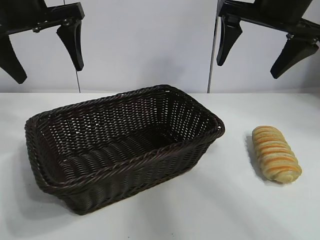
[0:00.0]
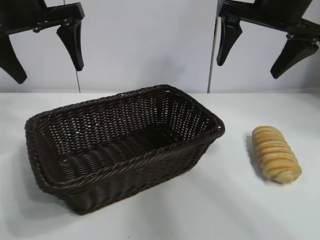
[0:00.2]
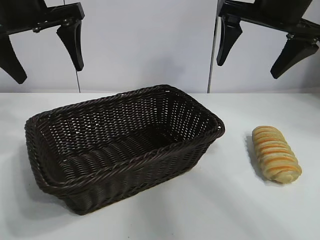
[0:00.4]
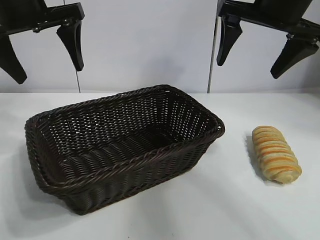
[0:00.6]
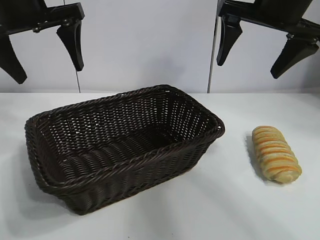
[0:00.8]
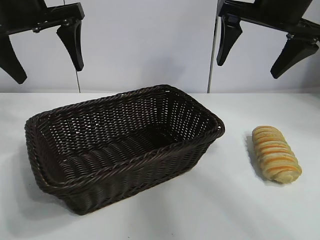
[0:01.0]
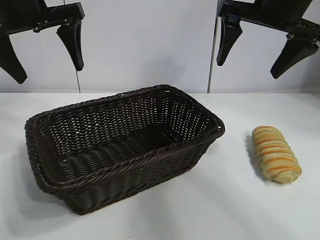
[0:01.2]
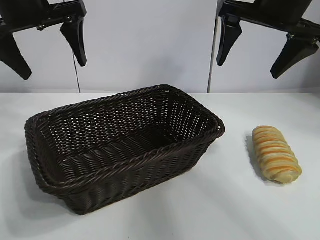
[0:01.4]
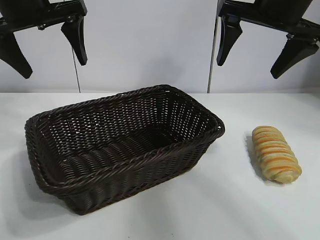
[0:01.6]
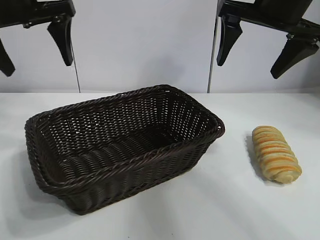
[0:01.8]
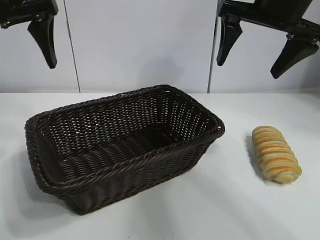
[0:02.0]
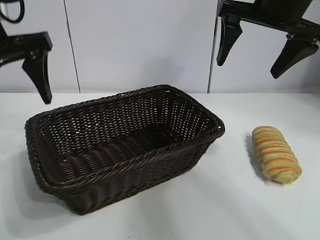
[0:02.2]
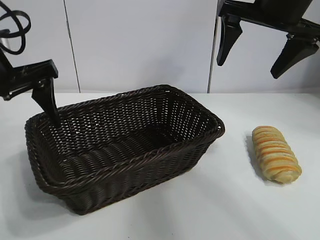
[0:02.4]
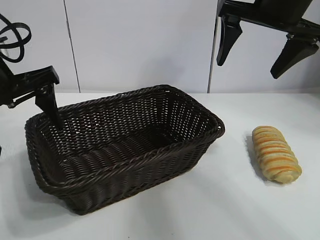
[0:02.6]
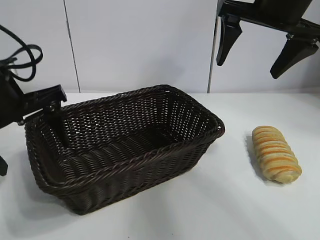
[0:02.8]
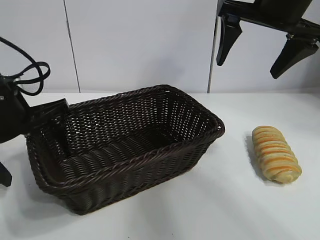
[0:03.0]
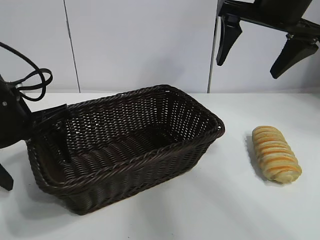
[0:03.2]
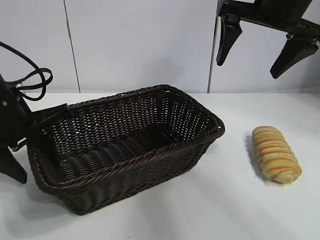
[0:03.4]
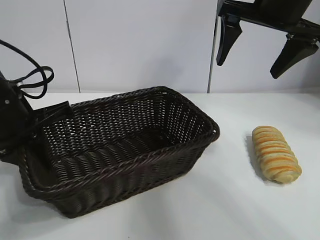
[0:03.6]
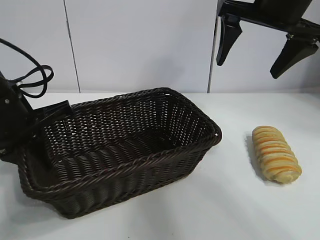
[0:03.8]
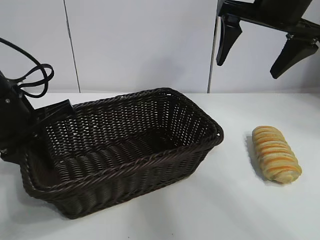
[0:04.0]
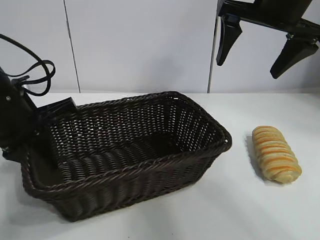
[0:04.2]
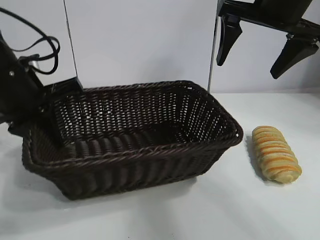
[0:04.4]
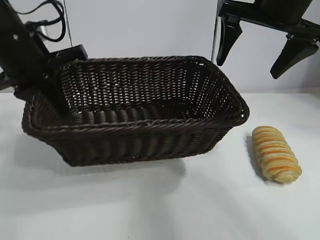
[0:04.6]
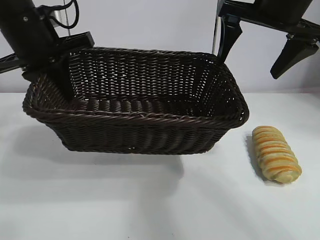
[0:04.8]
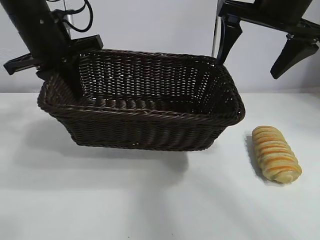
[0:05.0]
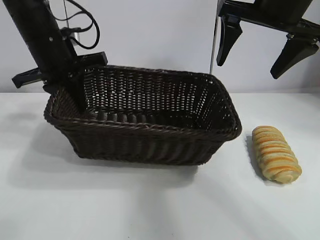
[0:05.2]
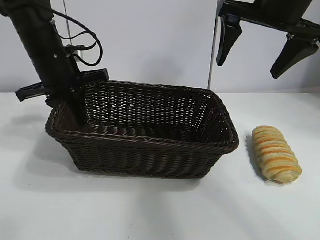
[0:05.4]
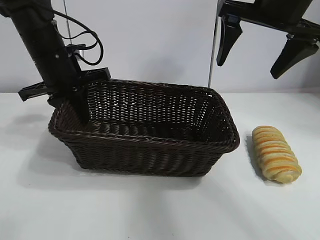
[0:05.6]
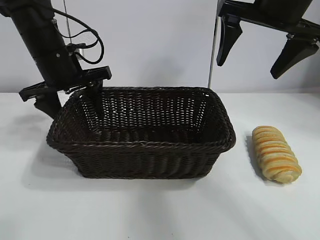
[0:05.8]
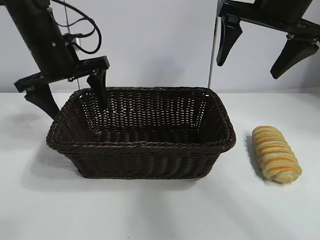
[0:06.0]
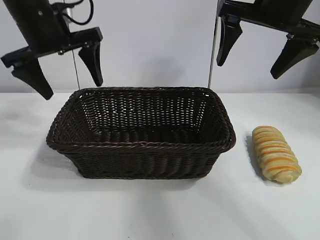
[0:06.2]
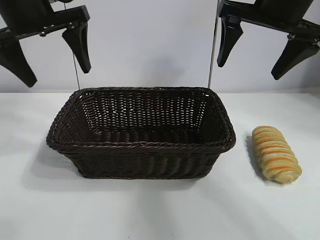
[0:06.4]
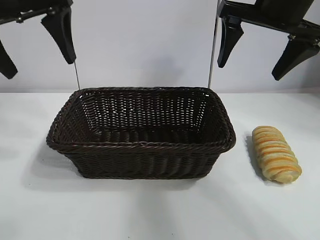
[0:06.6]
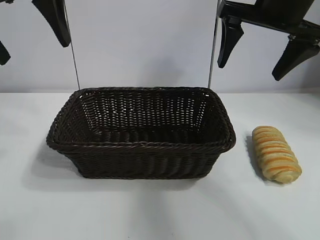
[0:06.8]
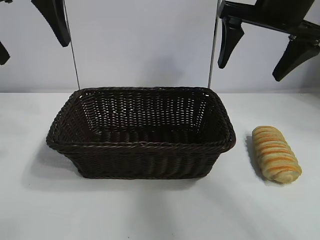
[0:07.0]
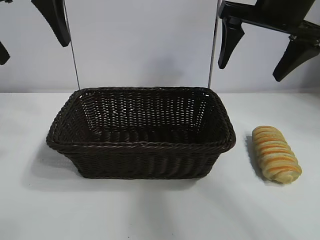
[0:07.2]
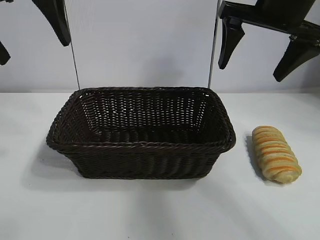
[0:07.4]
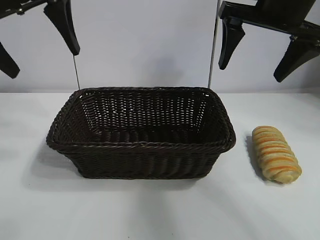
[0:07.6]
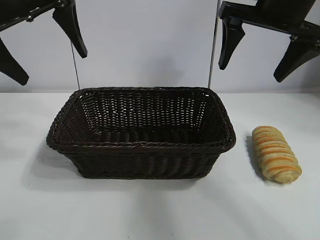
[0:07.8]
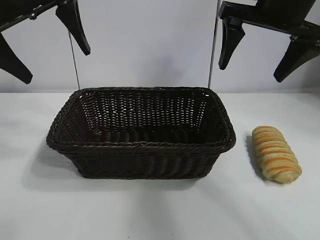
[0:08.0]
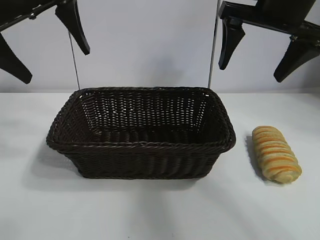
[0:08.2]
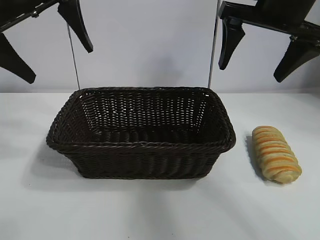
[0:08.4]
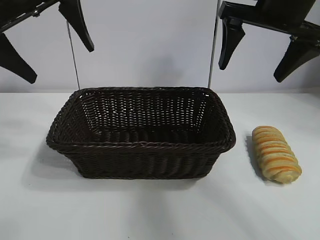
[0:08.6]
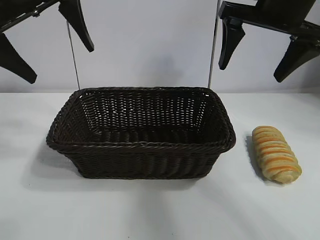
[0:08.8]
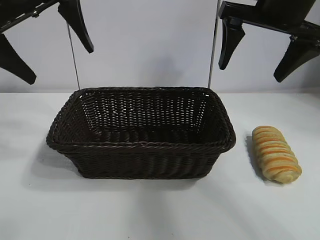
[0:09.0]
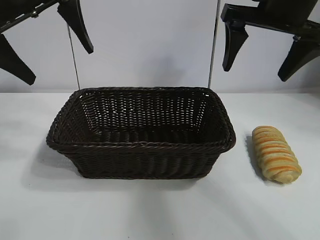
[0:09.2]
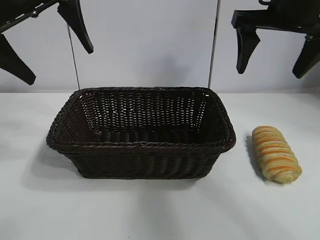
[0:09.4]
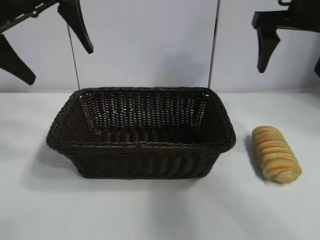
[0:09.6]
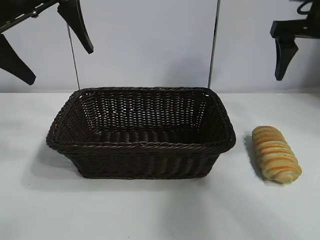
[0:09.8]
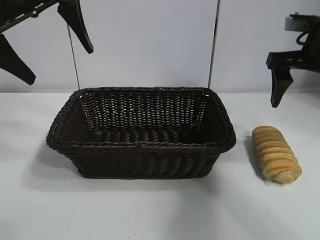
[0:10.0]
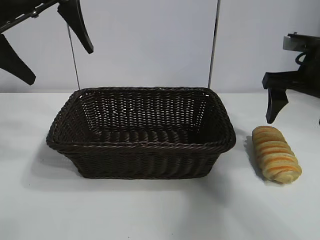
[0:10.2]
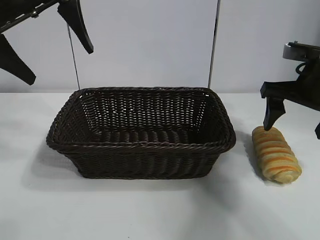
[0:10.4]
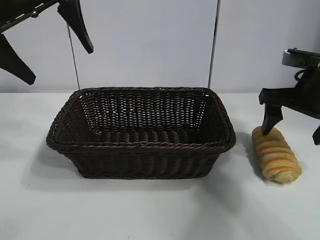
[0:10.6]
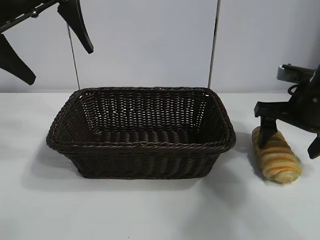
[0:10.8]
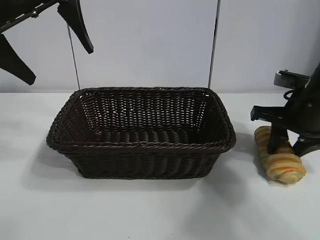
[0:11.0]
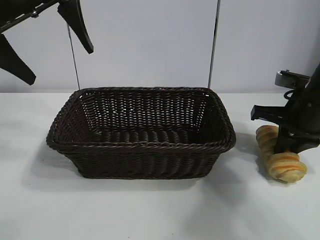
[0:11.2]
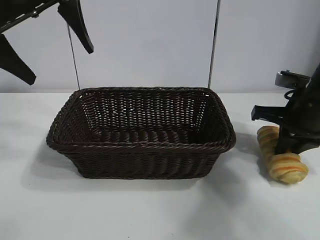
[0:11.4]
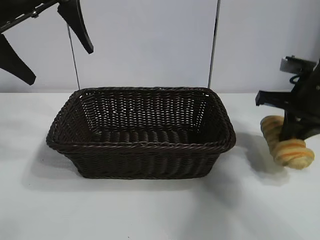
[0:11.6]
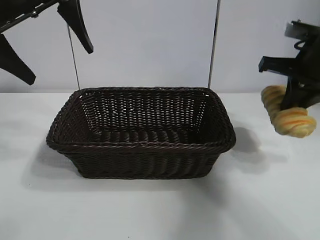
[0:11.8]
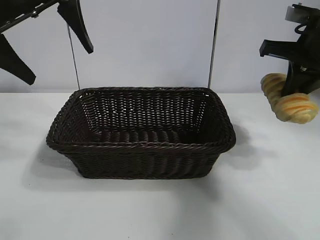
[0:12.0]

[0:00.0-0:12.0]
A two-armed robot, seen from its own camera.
Task of the whole recording: pick up the long bread and put it into the basket.
Step, 0:01.4 to 0:03.6: Grasp the basket with the left gripper.
Step, 0:03.8 to 0:05.8: Place the basket in the center of the table with the left gripper.
Step, 0:06.0 to 0:11.0: Grasp the long bread with right gripper.

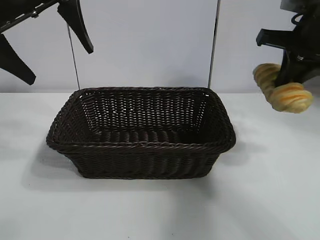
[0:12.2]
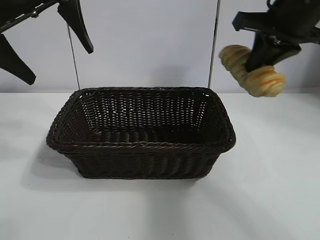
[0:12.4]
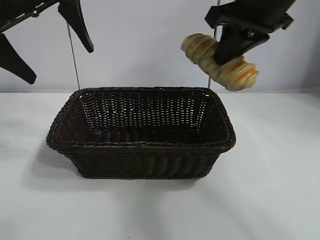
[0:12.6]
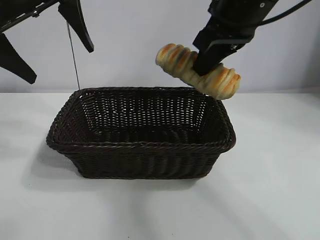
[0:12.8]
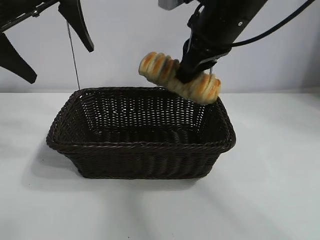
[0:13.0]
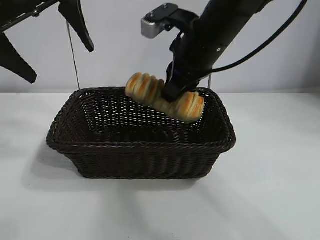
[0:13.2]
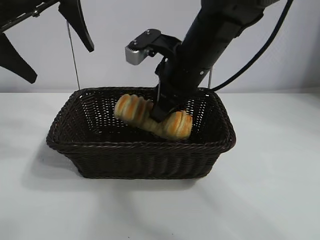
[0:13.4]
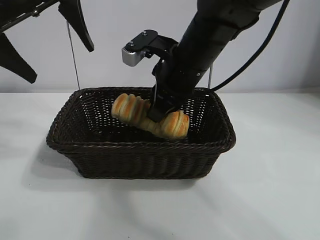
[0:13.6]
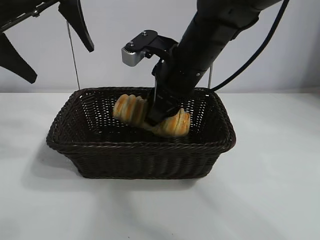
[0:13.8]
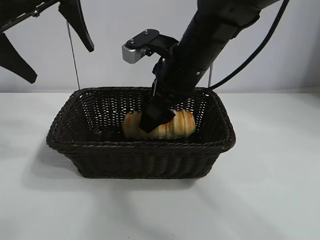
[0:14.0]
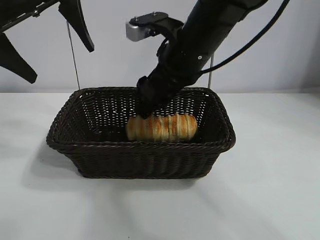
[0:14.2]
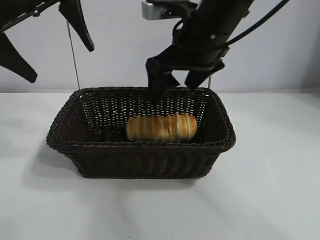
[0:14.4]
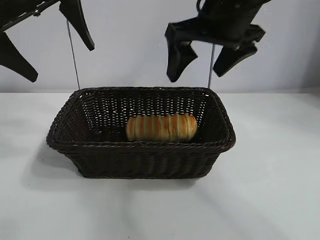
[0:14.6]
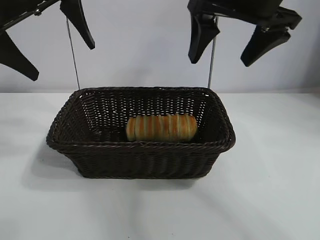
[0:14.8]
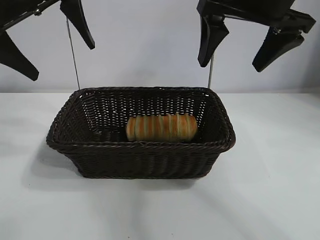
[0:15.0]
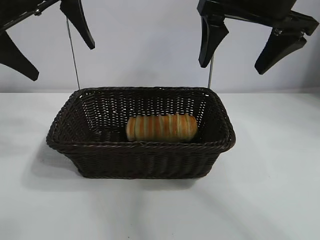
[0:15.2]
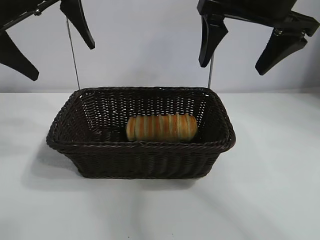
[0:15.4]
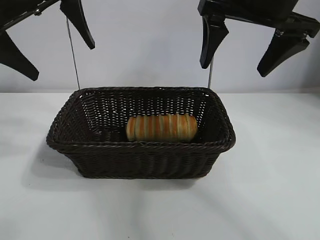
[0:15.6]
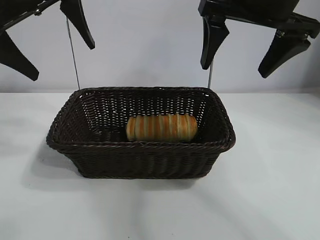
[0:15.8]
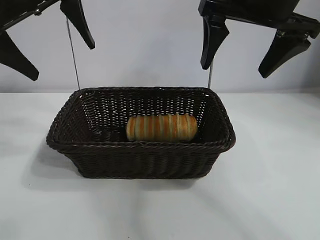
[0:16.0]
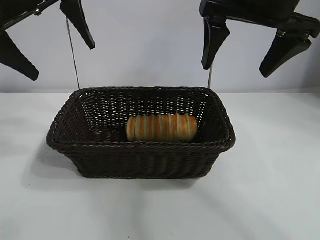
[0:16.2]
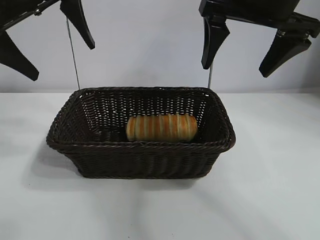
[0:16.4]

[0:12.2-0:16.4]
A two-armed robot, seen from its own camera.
Task of the whole recording: pick up the long bread and put it into the basket.
Step, 0:12.2 to 0:14.2: Place the long bread in the basket with right gripper.
